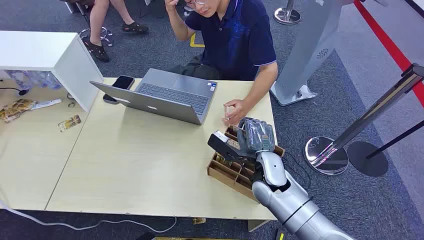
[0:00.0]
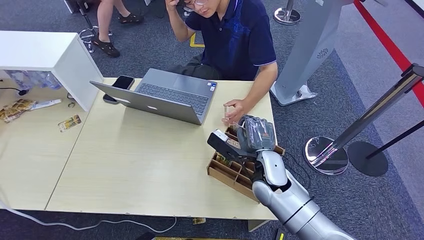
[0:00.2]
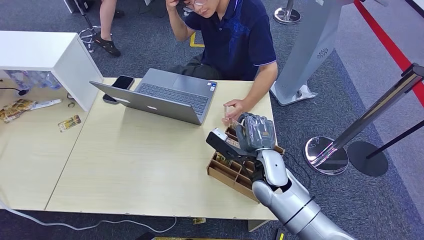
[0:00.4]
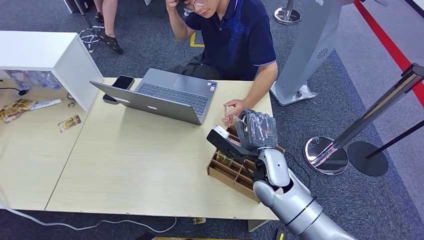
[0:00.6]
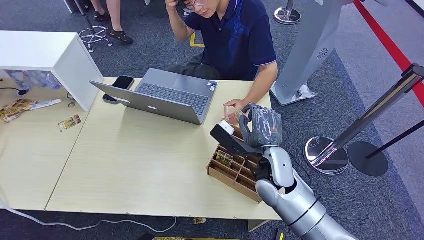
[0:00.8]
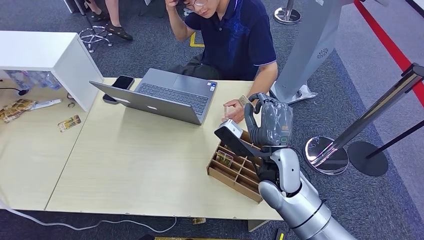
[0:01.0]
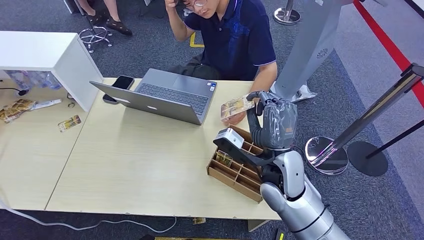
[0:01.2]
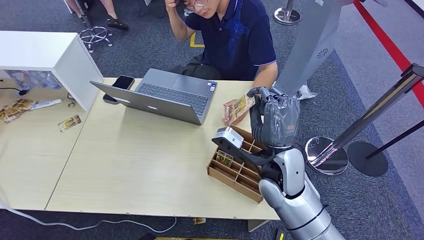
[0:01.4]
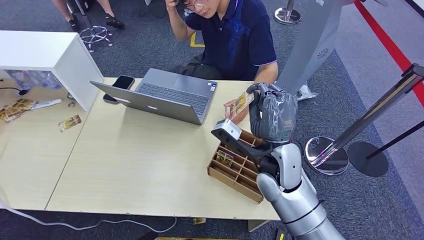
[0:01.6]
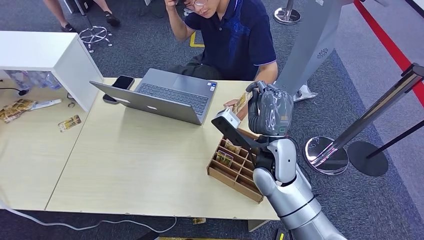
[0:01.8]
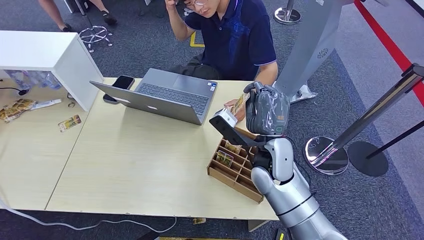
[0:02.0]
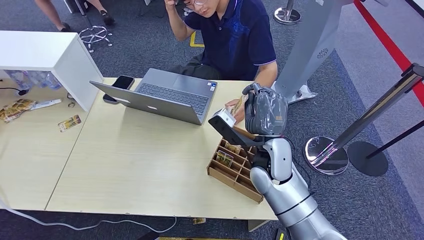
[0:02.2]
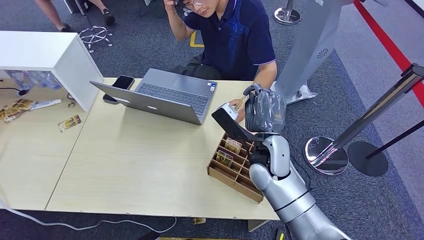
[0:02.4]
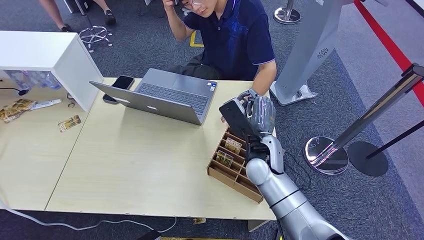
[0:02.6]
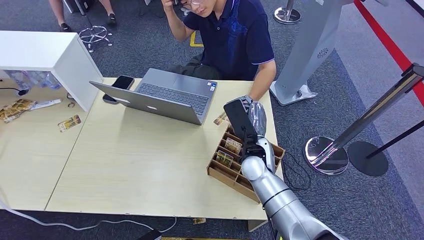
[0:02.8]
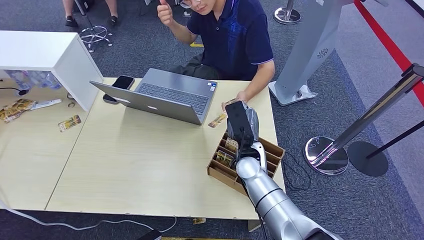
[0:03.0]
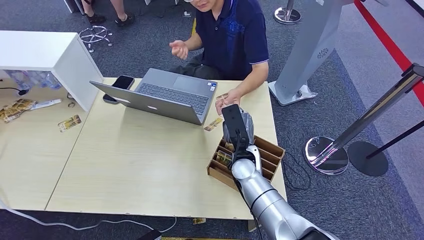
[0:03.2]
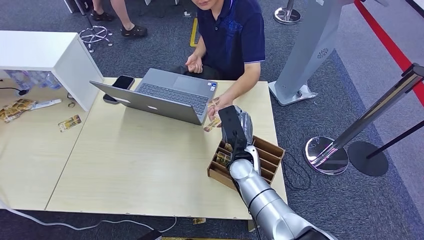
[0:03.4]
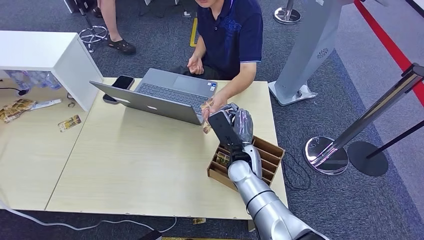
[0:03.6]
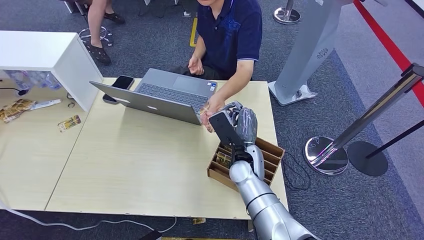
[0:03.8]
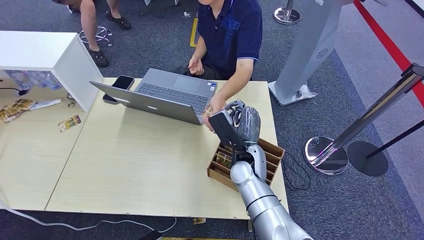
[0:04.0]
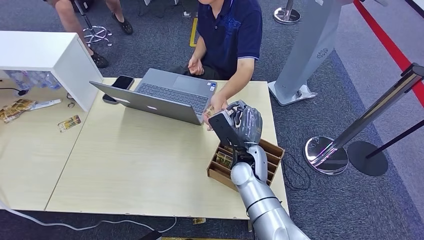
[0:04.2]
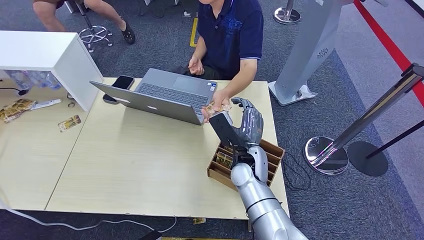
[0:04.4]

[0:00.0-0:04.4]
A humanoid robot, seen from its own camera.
Step, 0:00.0 to 0:01.0: Pick up the key card from the card box.
Step, 0:03.8 to 0:04.4: Hand the key card to the target.
0:01.4 to 0:03.0: The right hand heads downward and forward, covering some 10 cm.

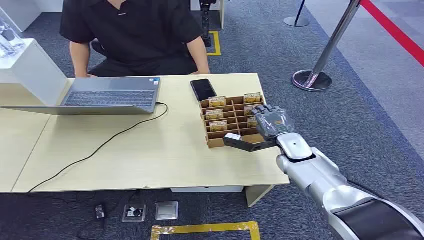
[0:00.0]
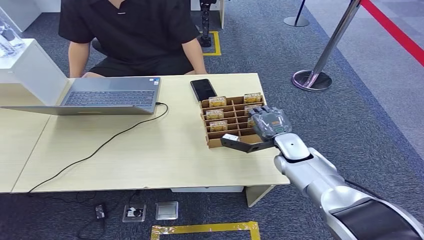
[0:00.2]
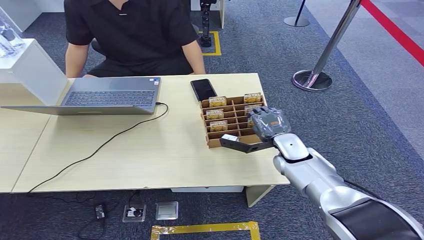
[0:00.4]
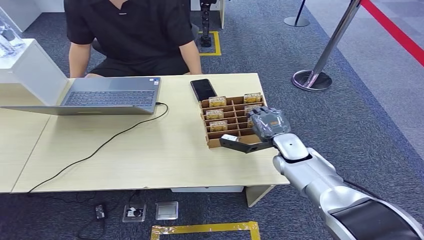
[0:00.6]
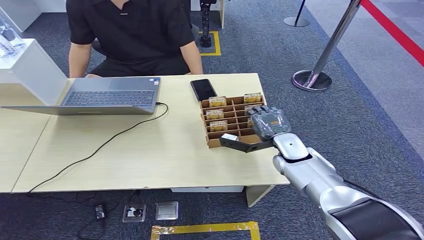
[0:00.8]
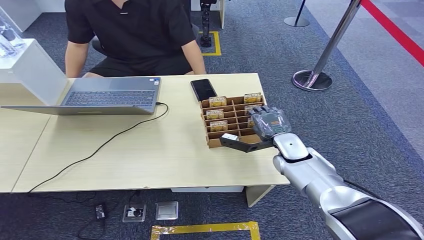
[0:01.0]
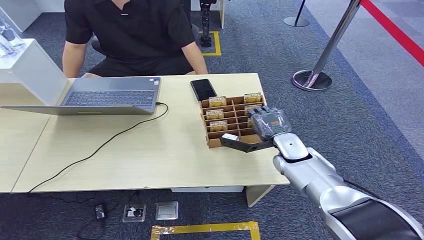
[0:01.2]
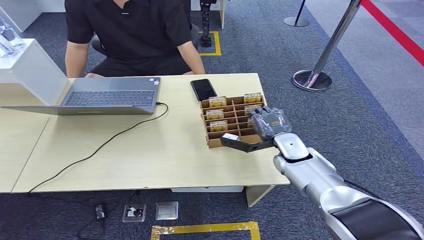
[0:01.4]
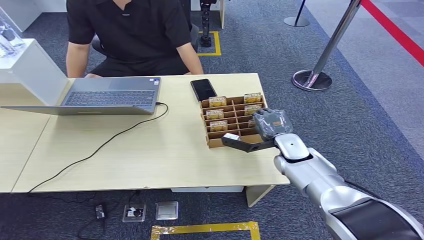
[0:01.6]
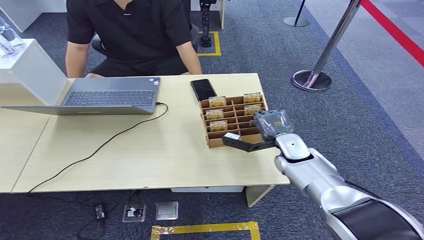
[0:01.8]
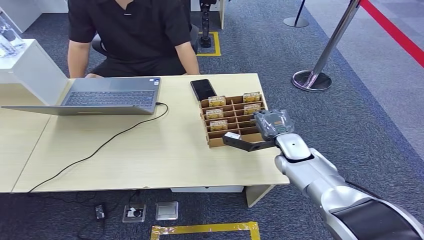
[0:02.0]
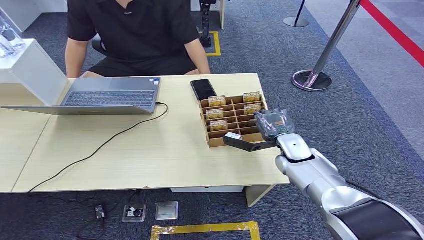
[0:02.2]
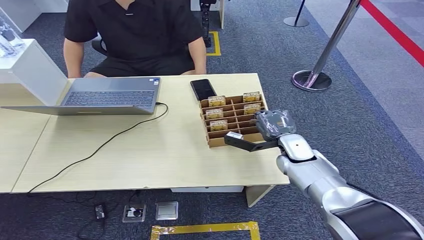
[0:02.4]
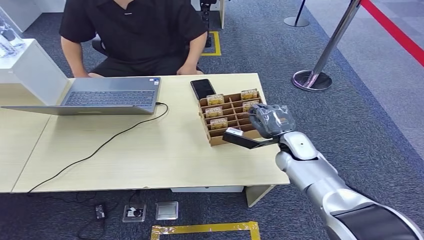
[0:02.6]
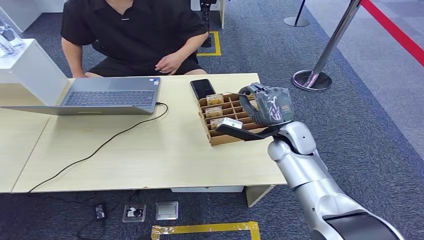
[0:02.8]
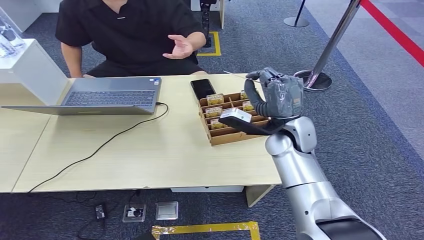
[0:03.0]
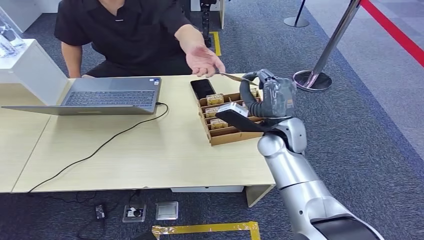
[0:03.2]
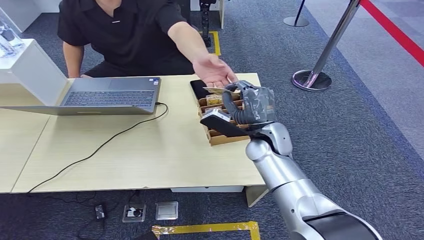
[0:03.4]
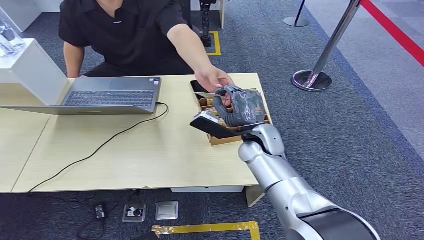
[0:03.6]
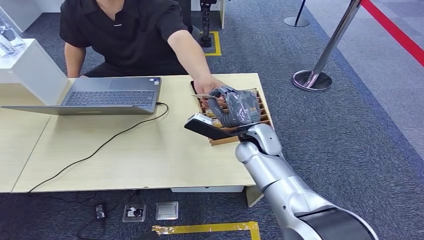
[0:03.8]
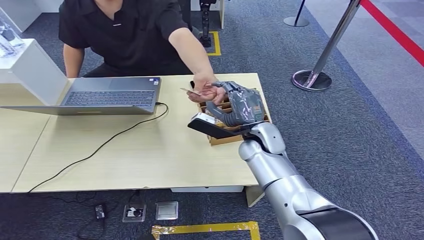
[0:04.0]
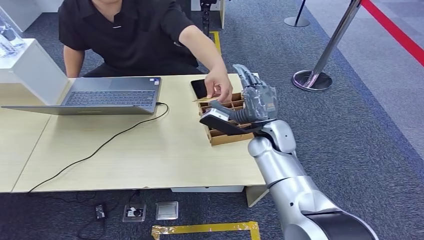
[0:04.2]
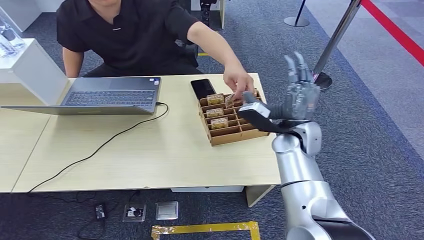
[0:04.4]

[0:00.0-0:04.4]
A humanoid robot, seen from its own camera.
Step, 0:00.0 to 0:02.6: Pick up the key card from the card box.
Step, 0:03.0 to 0:04.4: Hand the key card to the target.
0:01.4 to 0:03.0: The right hand travels upward by about 10 cm.

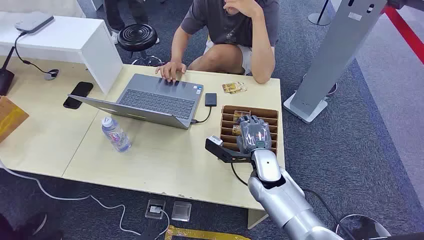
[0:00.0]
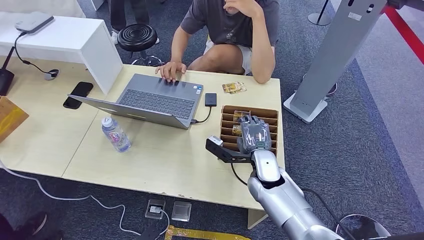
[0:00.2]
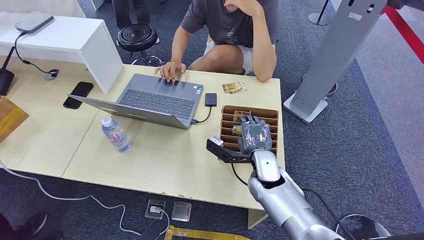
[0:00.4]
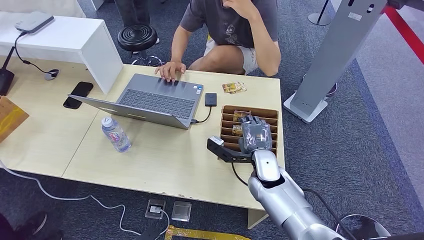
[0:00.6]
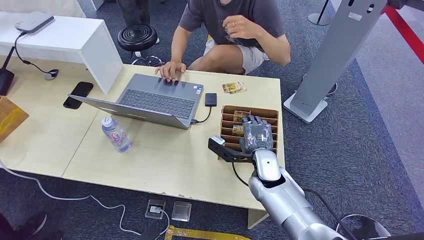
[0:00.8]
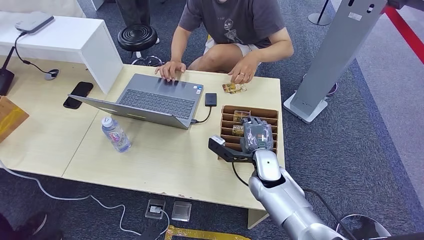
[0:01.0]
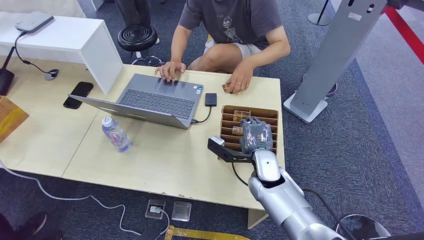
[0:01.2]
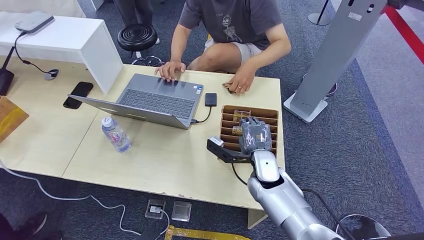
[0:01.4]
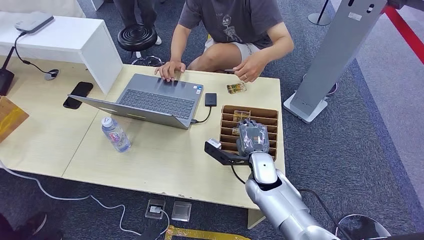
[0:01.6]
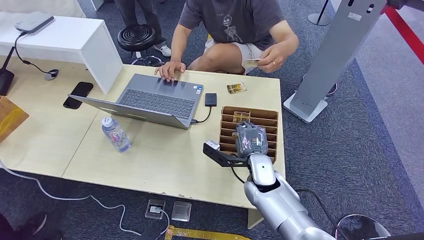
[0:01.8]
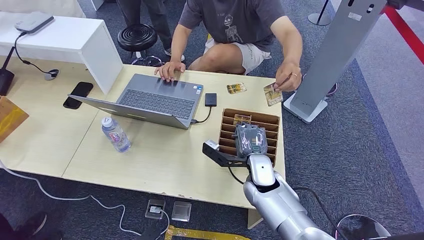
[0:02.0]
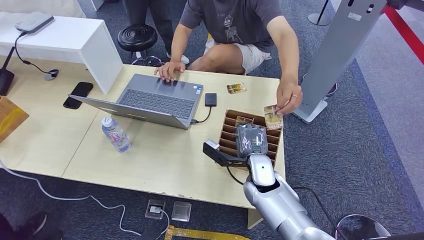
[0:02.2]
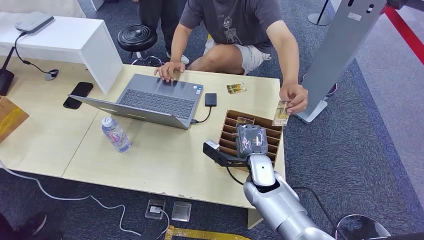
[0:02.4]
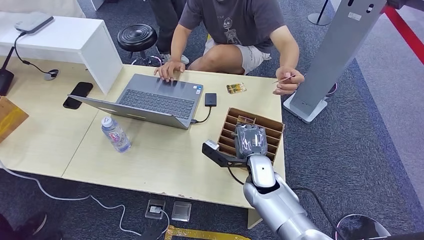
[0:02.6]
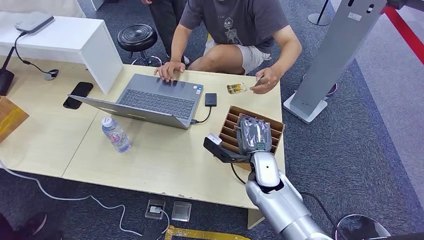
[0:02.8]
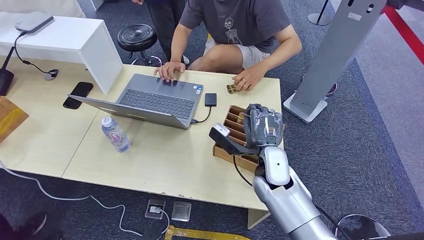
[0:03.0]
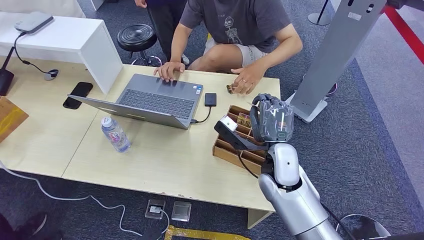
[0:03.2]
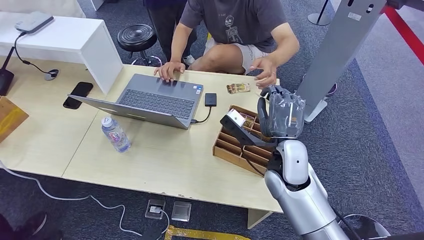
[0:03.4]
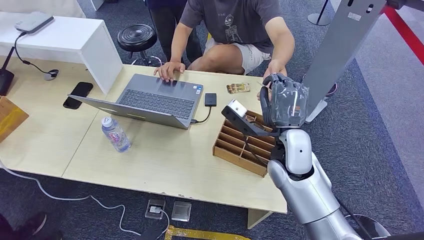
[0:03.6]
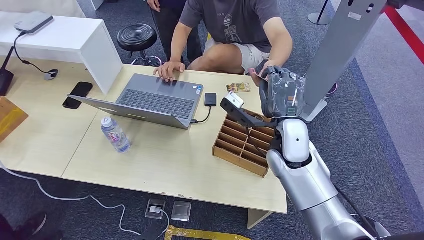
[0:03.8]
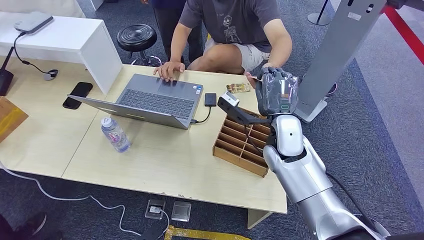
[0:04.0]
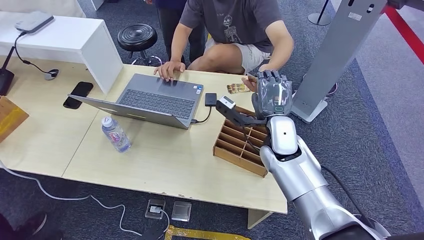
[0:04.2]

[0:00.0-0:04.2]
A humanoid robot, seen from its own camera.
Step, 0:00.0 to 0:02.8: Pick up the key card from the card box.
Step, 0:03.2 to 0:04.2: Hand the key card to the target.
0:01.4 to 0:02.8: The hands make only small movements.
0:02.8 to 0:04.2: The right hand travels upward and forward by approximately 10 cm.
